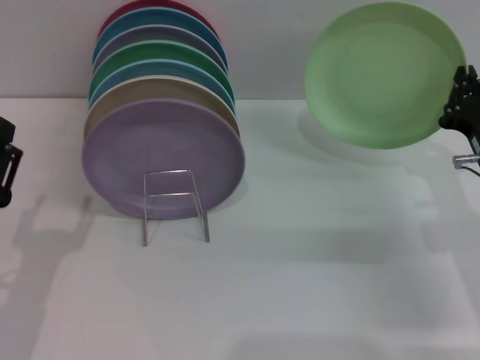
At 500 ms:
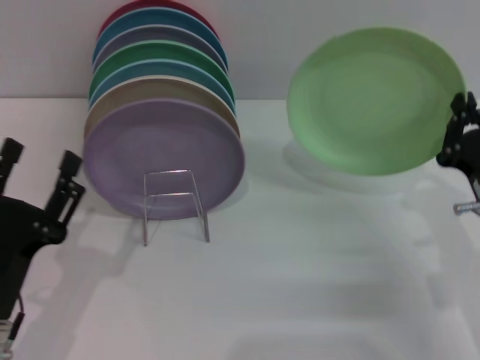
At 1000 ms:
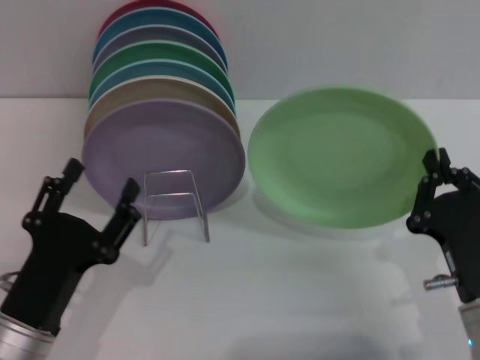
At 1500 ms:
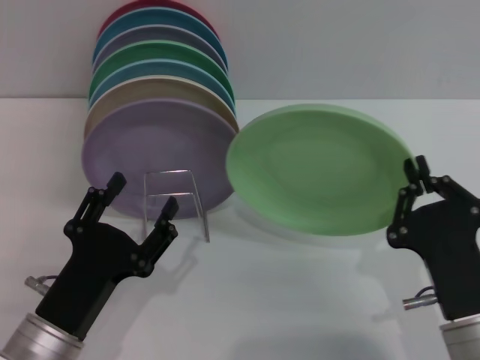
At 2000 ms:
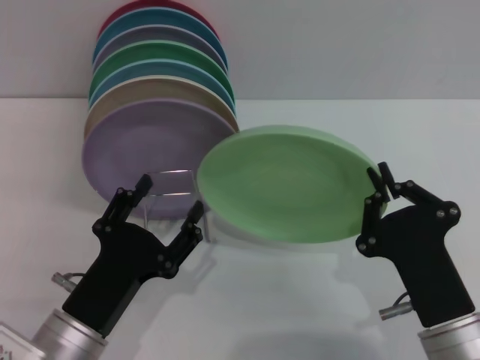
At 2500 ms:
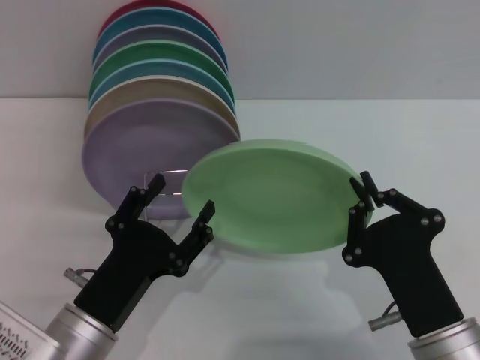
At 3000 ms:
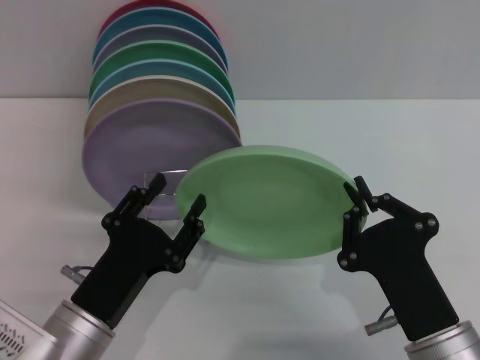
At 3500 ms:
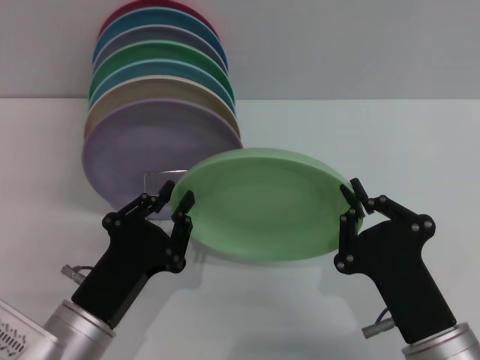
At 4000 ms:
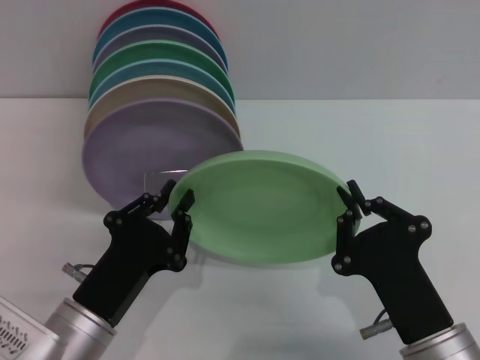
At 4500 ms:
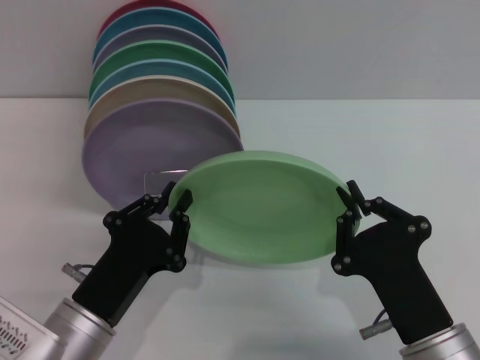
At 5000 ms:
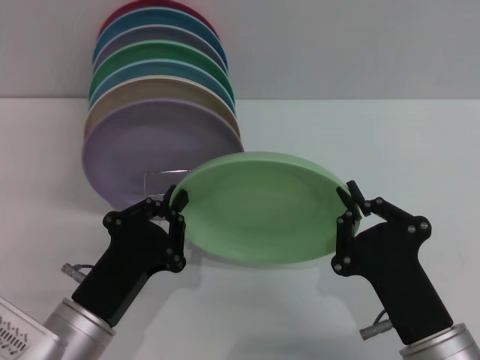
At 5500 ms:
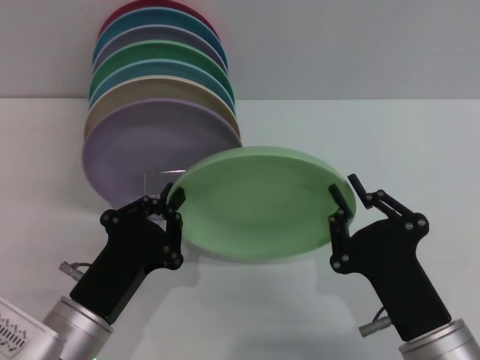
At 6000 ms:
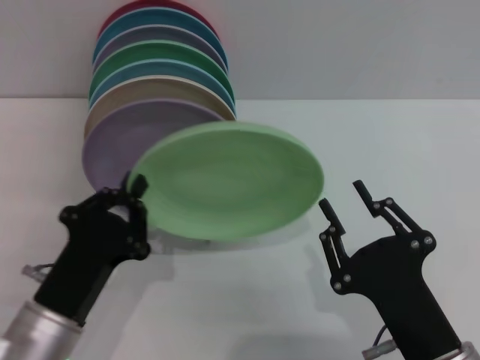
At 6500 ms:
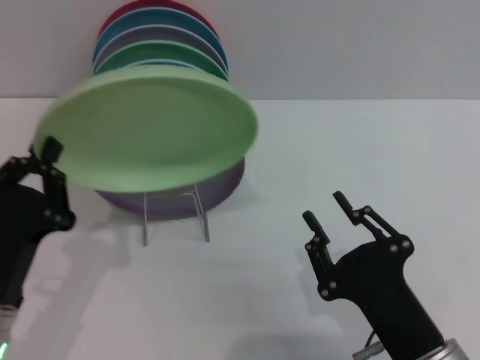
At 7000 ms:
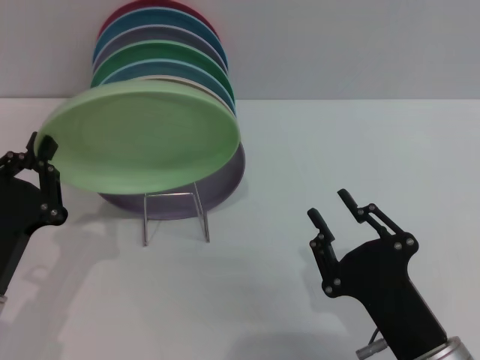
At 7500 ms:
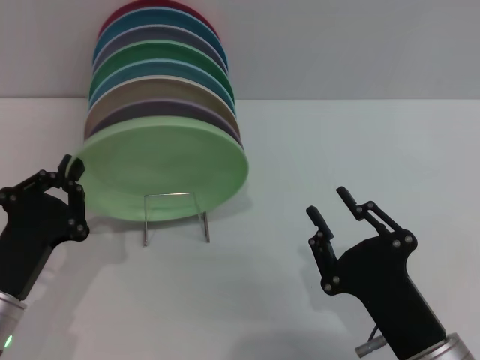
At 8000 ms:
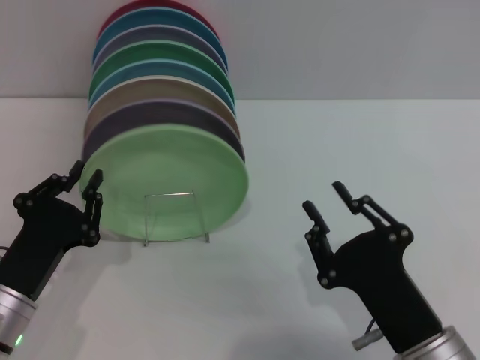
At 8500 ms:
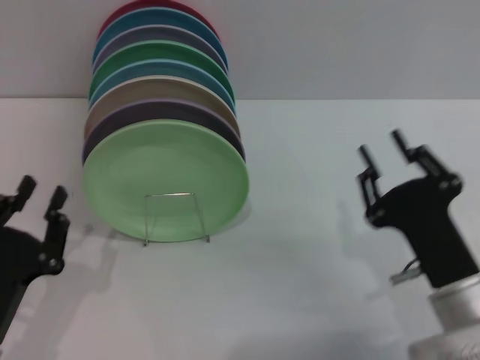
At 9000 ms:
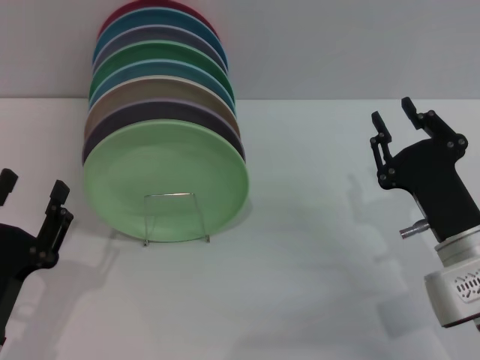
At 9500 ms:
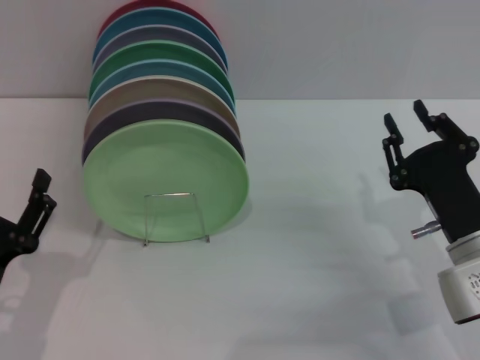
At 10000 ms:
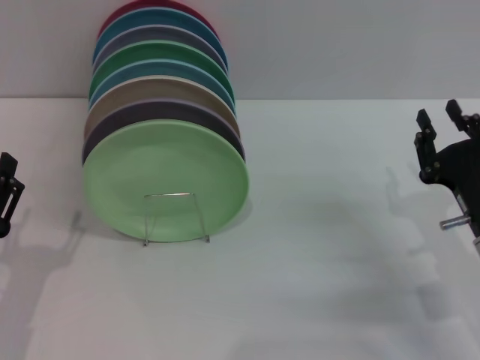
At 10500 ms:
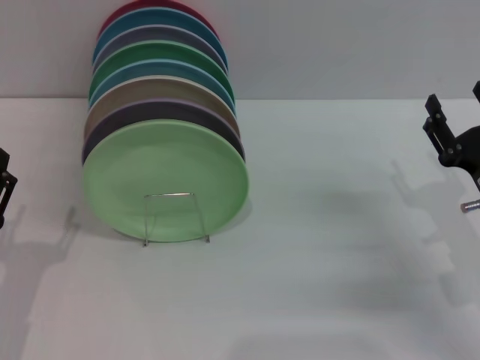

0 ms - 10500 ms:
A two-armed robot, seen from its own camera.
Task of the whole recording: Grip the plate with one hand, pass it to the other, then set it on the shelf.
Step, 0 ms - 5500 ms: Pass the plate from the right gripper to the left gripper.
Step, 6000 ms - 8500 ms: Place the plate on the shelf with the left gripper.
0 ms - 2000 ms: The left gripper is displaced to the right by some 10 cm; the right gripper moves backward and to the left, roughly 20 cm.
2000 ms - 4000 ms: The left gripper closes.
4000 ms - 6500 ms: The right gripper opens, while the left gripper goes roughly 5 cm to the left.
6500 ms - 8500 ms: The right gripper moves forward, some 5 cm; the left gripper opens.
8500 ms - 10500 ms: The left gripper opens up. Meanwhile the right gripper is displaced to the right and forward by about 10 cm, and opens its fingers.
